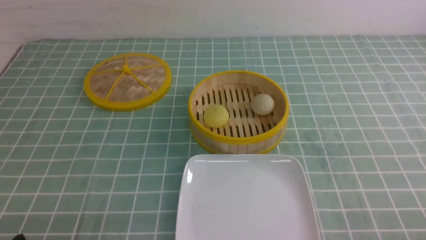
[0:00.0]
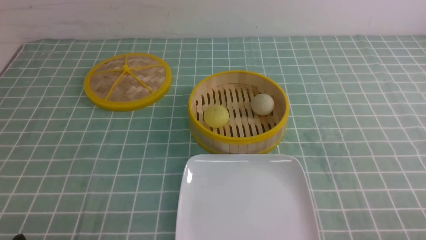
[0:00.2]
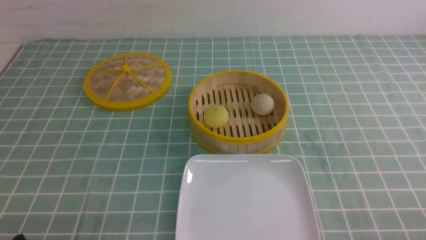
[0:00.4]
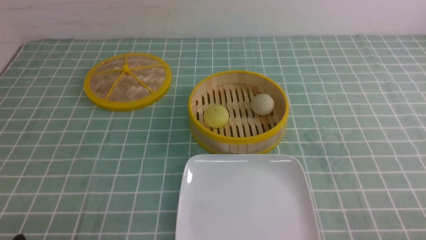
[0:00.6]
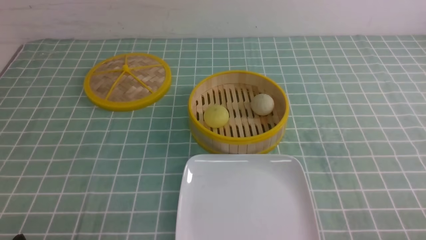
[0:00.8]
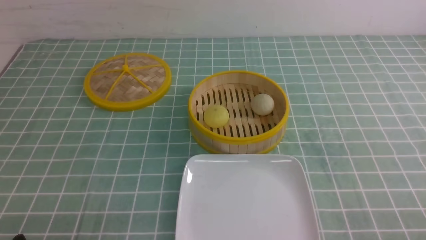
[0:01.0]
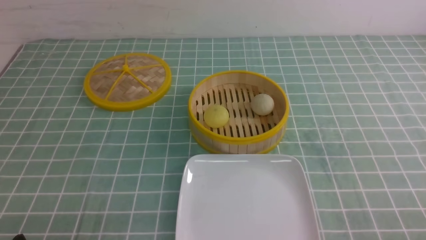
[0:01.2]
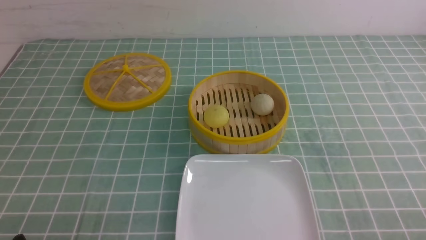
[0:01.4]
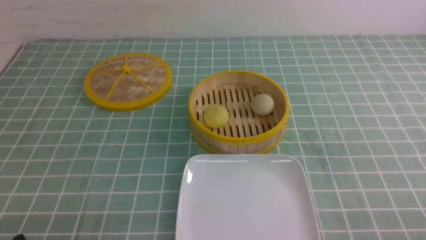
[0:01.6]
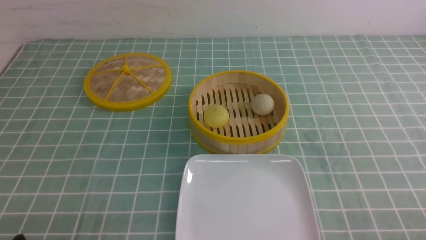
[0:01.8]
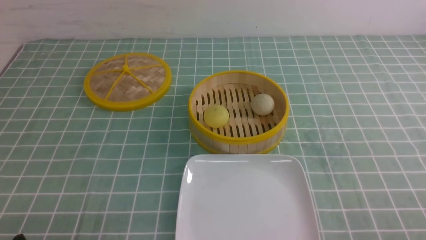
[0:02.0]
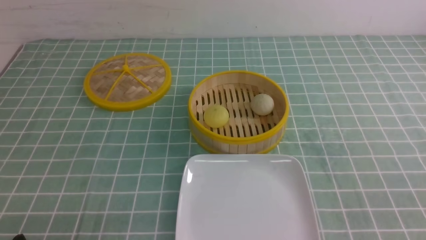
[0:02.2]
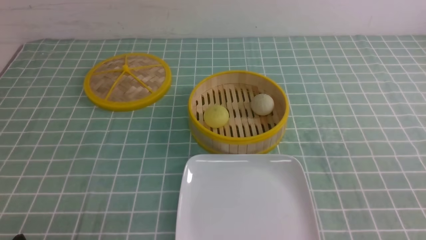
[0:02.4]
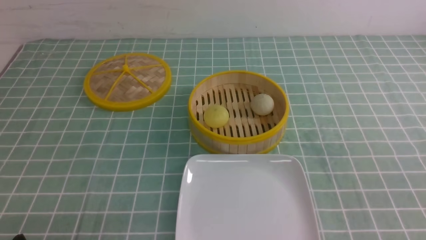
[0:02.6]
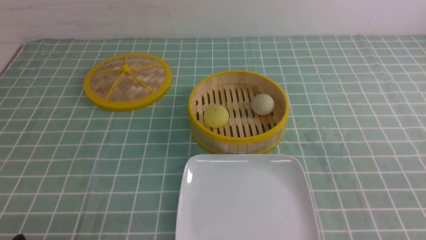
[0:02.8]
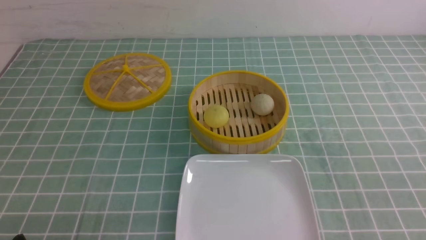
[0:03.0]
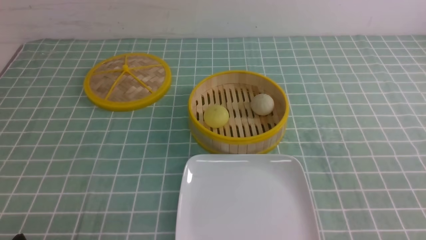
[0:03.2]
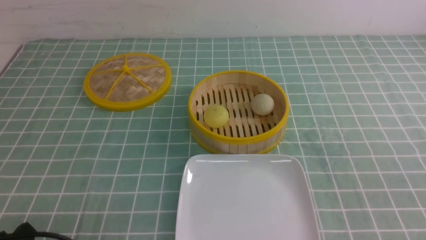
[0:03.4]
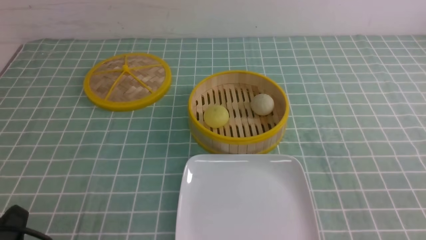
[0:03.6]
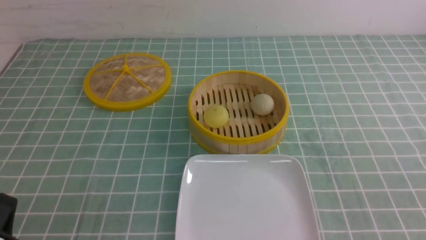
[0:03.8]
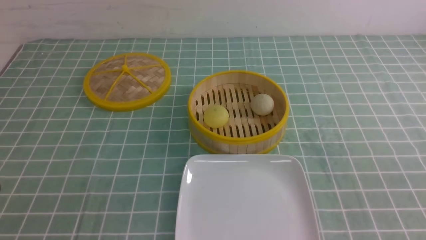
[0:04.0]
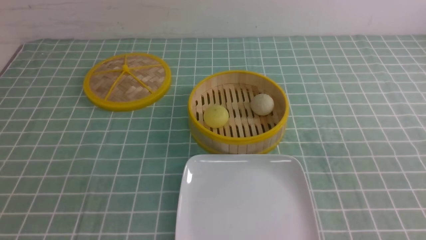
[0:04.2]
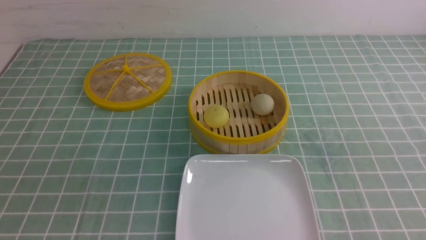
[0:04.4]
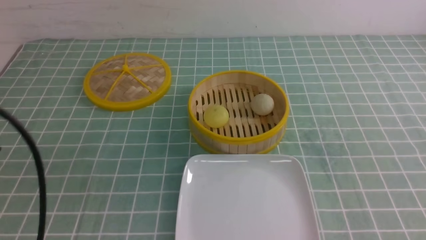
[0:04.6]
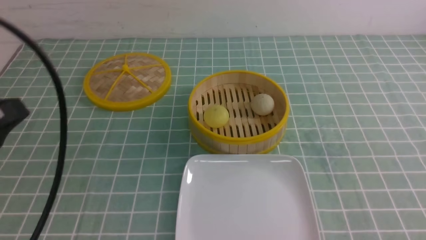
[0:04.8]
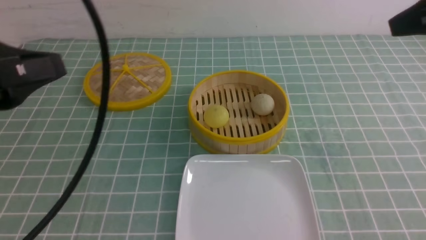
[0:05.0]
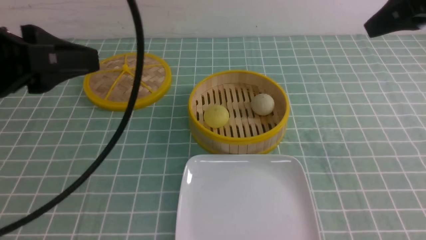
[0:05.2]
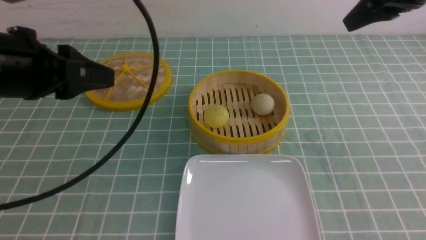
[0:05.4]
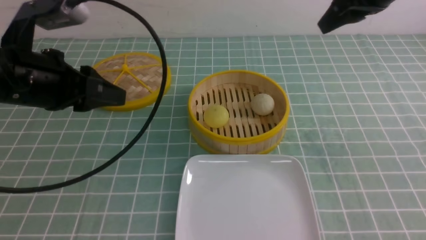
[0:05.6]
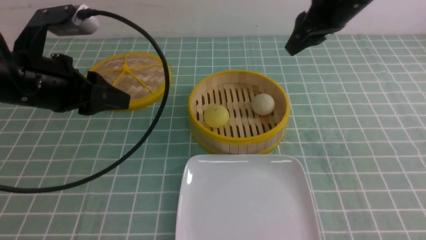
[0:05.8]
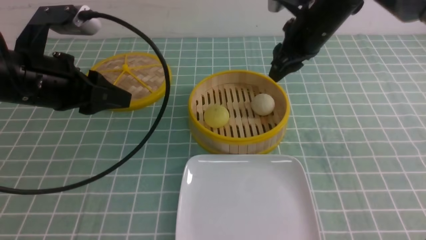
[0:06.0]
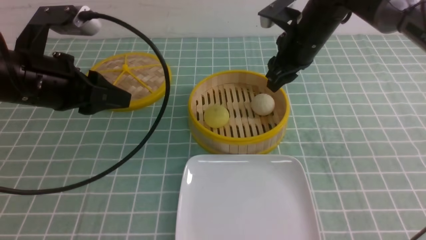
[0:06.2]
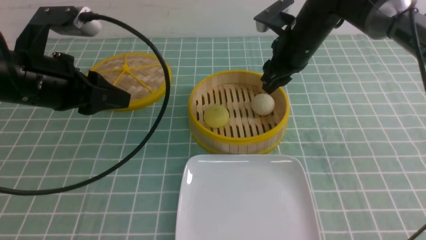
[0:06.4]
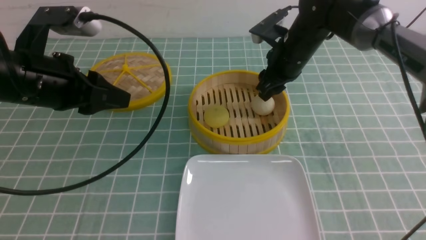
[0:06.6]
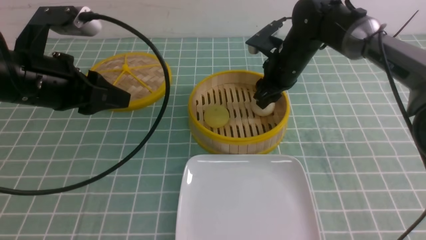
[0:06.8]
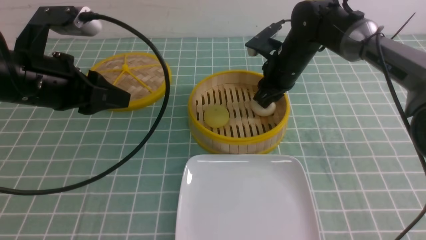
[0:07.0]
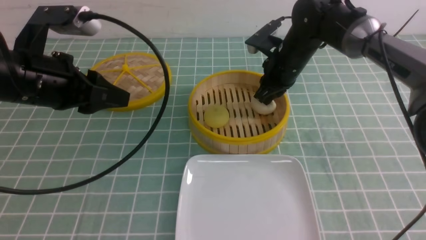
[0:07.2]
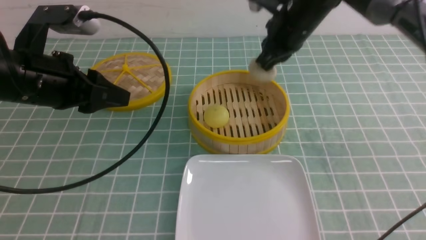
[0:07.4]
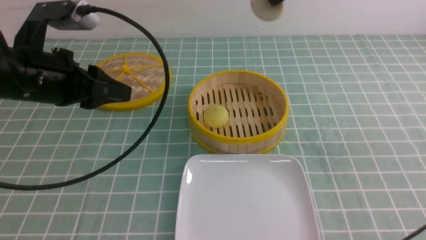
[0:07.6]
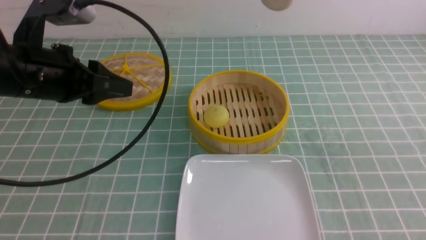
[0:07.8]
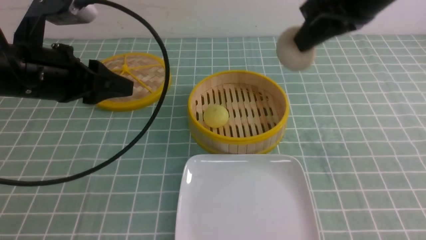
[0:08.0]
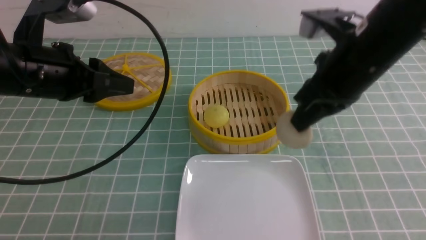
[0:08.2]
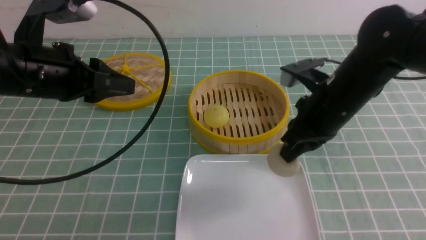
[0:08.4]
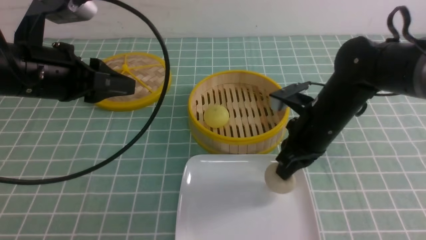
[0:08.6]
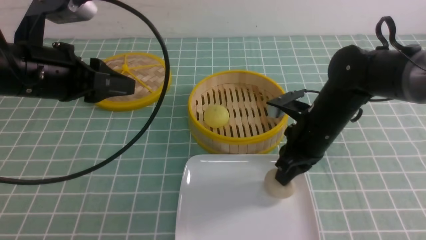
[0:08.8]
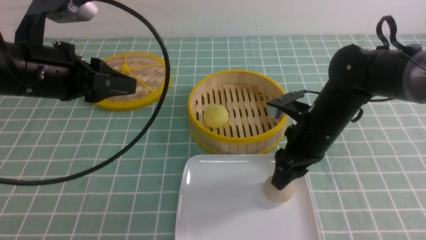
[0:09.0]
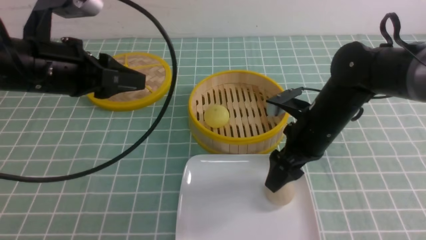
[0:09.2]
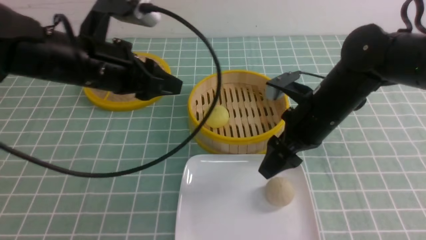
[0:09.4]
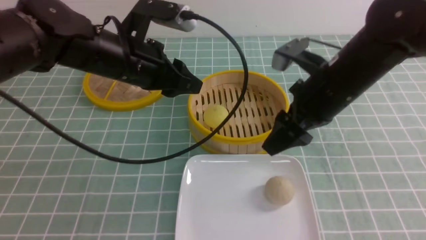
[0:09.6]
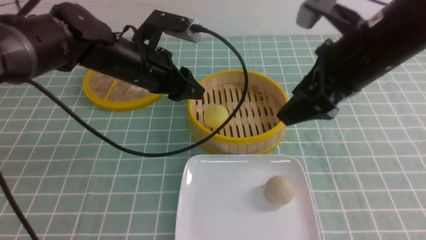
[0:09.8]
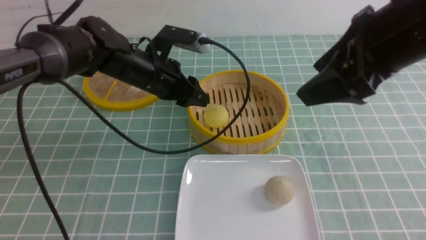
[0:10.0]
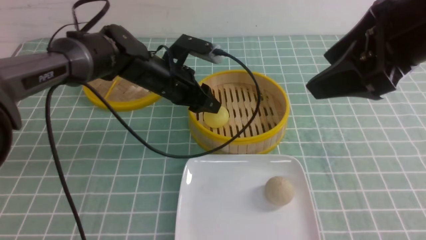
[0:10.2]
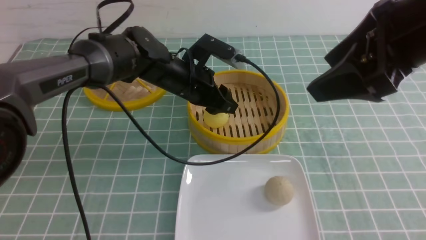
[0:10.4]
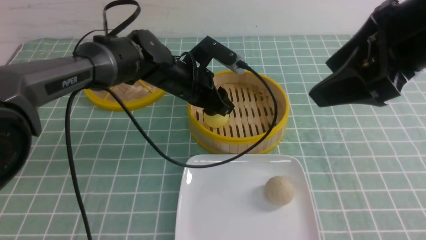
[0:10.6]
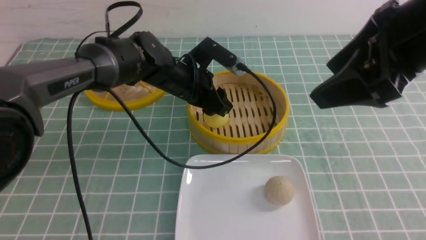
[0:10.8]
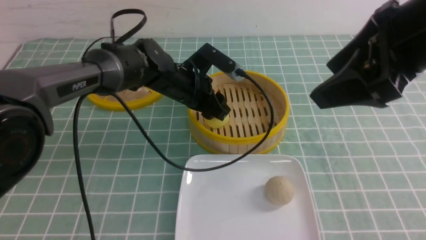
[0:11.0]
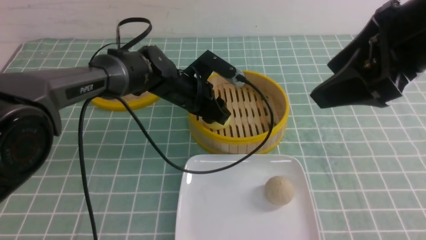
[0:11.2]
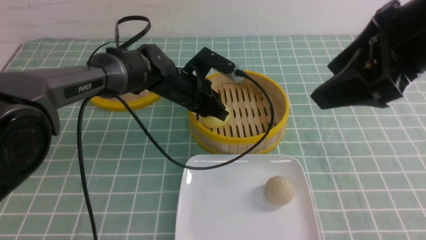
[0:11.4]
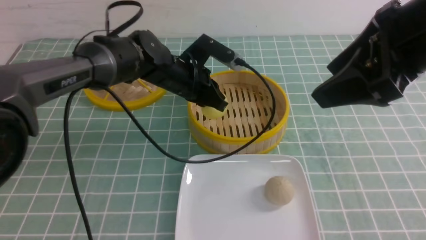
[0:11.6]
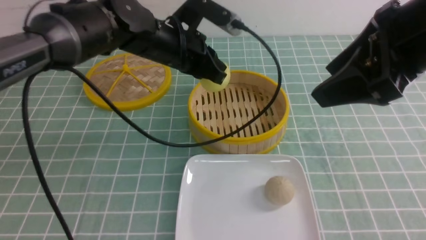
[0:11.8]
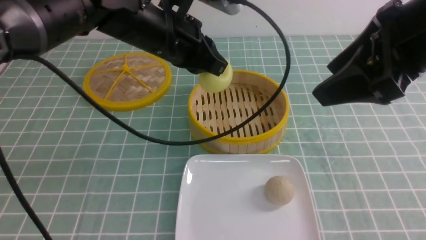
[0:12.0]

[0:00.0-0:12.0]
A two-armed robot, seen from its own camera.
Step, 0:00.0 to 0:07.2: use the right arm to grab the steamed stuffed bun that is closest to it.
Step, 0:07.4 to 0:08.8: use the right arm to put the steamed stuffed bun into the plate.
Step, 0:09.0 to 0:11.4: use the left arm to grab the steamed stuffed bun that is closest to it.
0:00.0 to 0:01.6: Neither gripper changes place.
0:04.4 to 0:06.0: The left gripper travels forward by some 20 cm. Meanwhile the right gripper shifts approximately 35 cm forward.
0:06.0 to 0:07.6: The right gripper travels upward and backward by approximately 10 cm, and closes its fingers.
0:07.6 to 0:09.0: The right gripper travels downward by roughly 25 cm, and opens.
0:09.0 to 0:10.4: The right gripper is displaced upward and backward by some 25 cm. Meanwhile the left gripper shifts approximately 20 cm to the right, forward and downward.
0:10.4 to 0:12.0: The left gripper goes about 10 cm upward and backward, and closes.

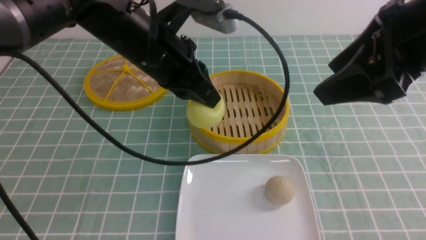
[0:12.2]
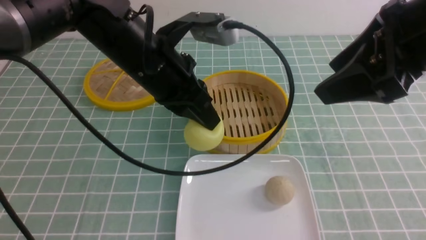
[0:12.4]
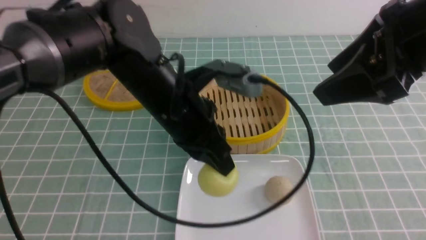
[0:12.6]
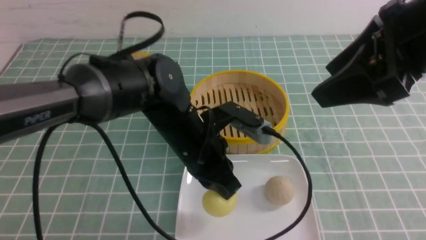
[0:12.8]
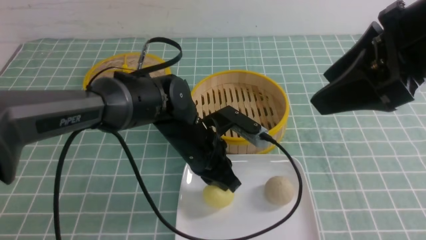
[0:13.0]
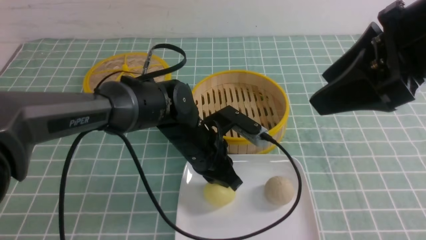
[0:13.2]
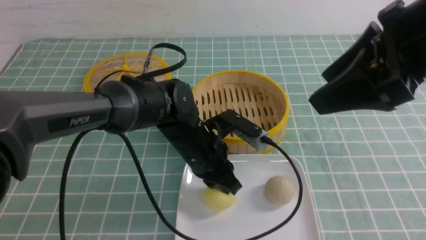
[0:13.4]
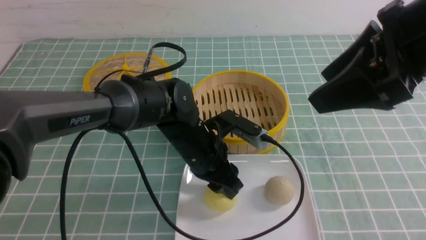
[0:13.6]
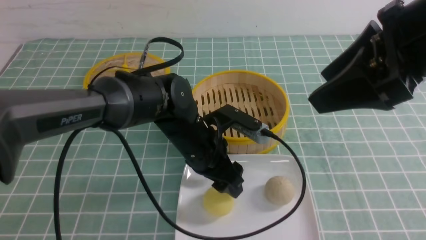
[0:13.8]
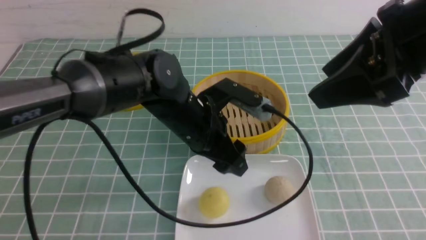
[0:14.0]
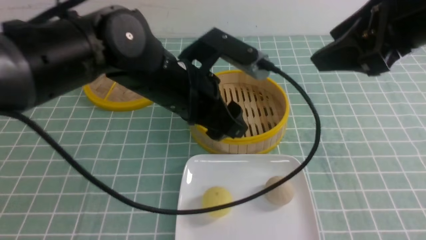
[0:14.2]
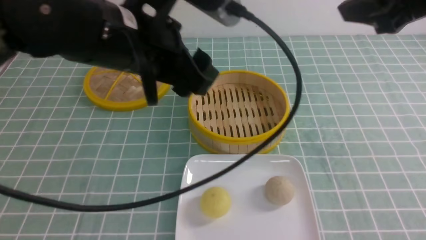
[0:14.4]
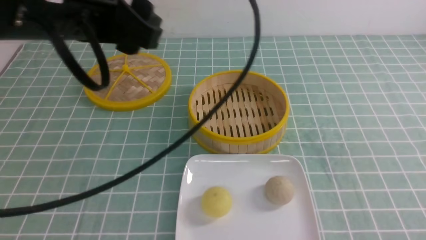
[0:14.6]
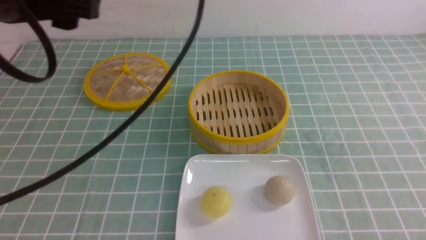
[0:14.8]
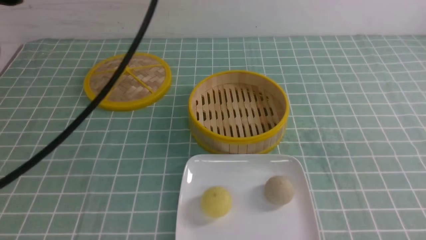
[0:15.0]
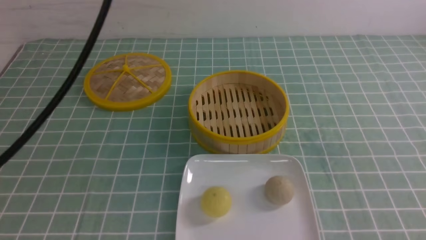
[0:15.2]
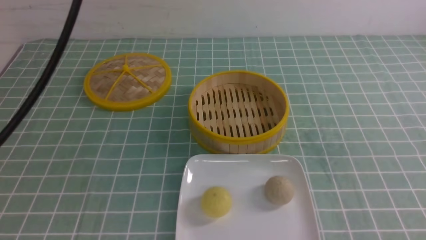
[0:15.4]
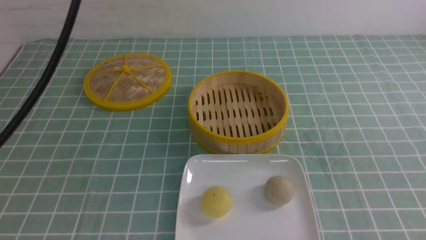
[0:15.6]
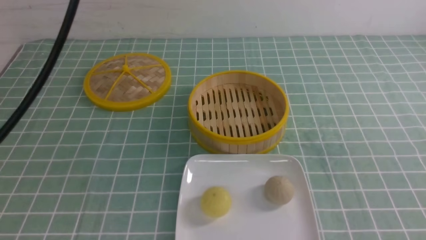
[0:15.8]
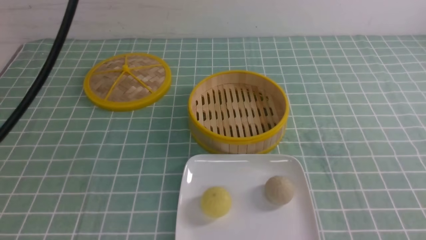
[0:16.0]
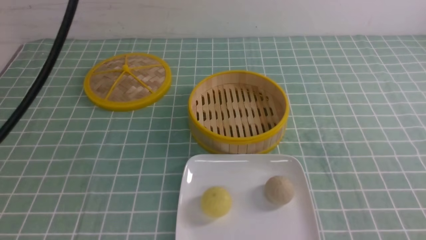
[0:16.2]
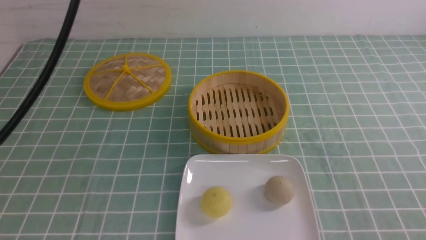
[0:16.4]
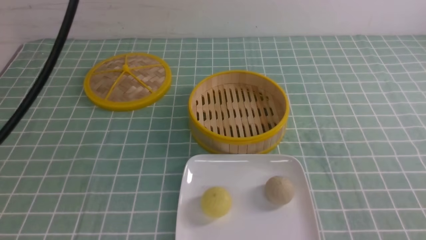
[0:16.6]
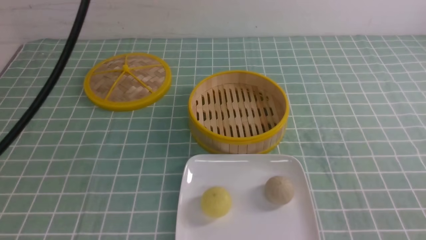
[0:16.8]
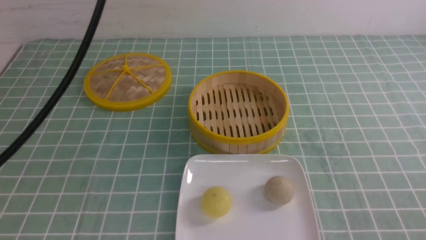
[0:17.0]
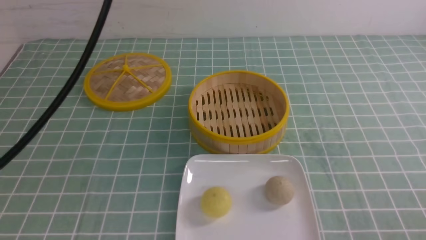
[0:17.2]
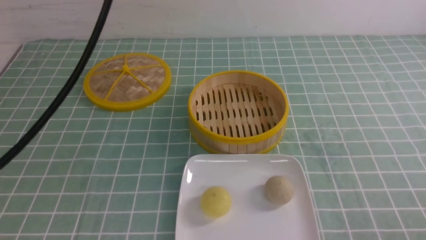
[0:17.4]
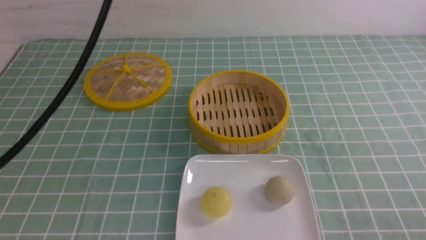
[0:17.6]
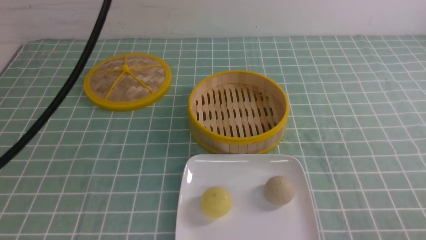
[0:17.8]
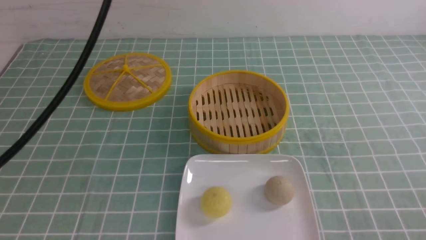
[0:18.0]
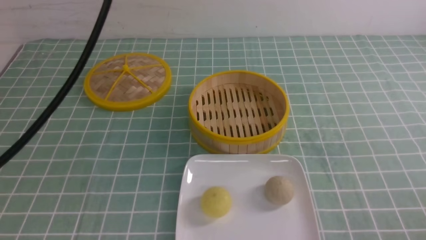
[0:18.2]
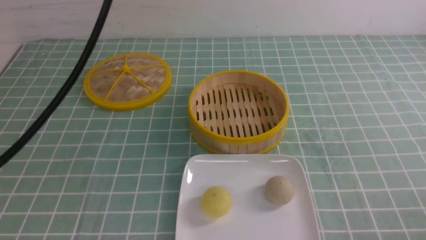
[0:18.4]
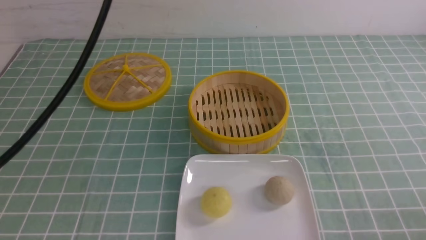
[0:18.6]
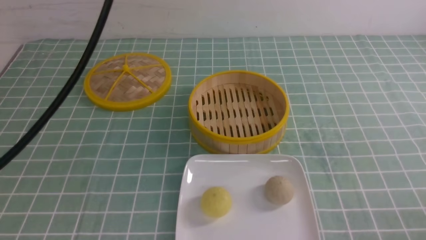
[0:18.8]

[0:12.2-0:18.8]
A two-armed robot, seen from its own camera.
Step, 0:12.2 to 0:13.4: use the left arm to put the steamed stuffed bun into the plate.
0:12.2 to 0:13.8: The left gripper moves downward, about 15 cm, and opens.
0:13.8 to 0:15.4: The right gripper heads backward and to the right, covering about 25 cm. The left gripper is displaced upward, to the left and backward by roughly 40 cm.
